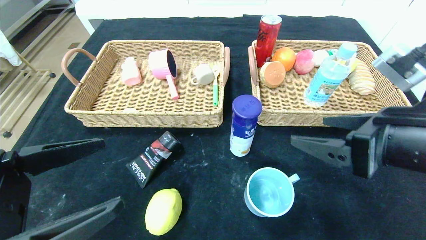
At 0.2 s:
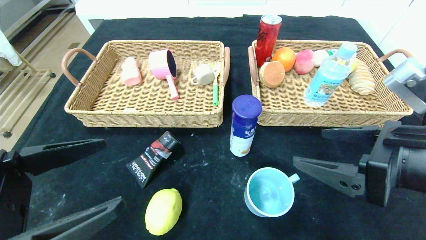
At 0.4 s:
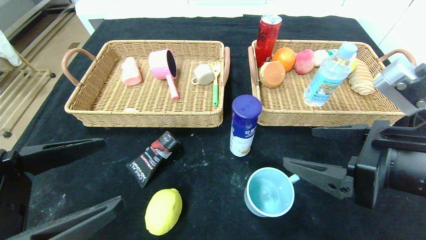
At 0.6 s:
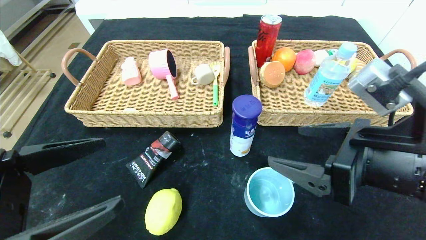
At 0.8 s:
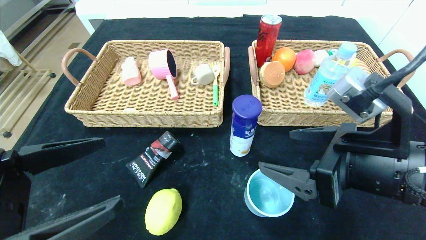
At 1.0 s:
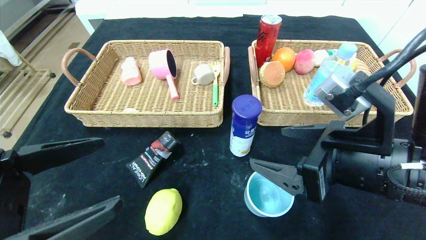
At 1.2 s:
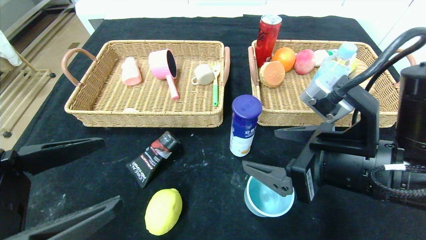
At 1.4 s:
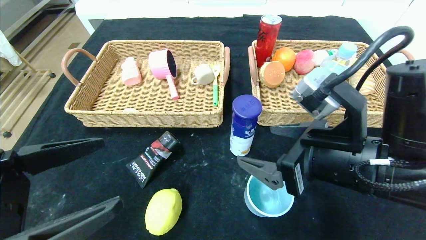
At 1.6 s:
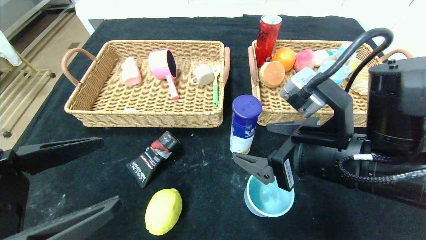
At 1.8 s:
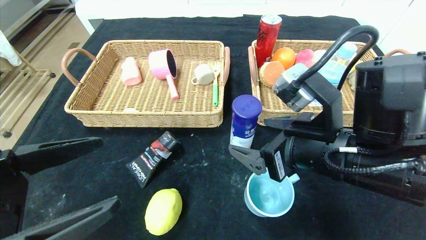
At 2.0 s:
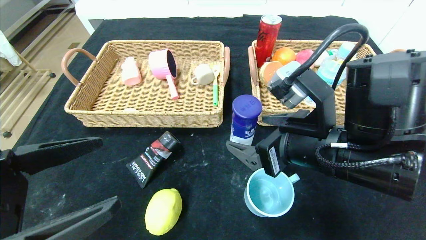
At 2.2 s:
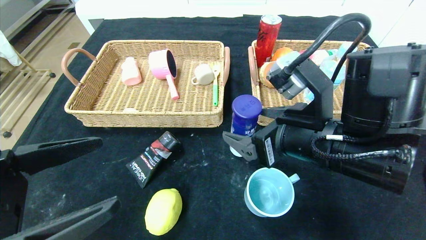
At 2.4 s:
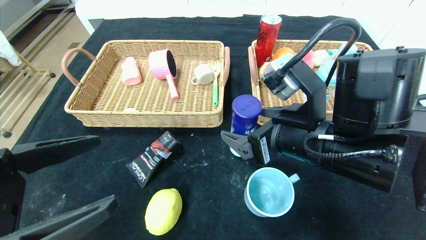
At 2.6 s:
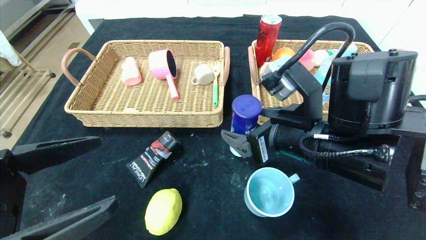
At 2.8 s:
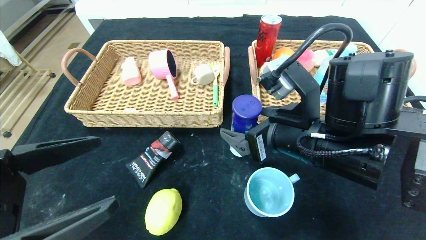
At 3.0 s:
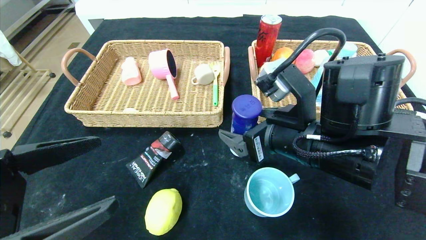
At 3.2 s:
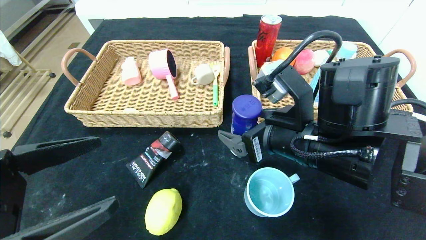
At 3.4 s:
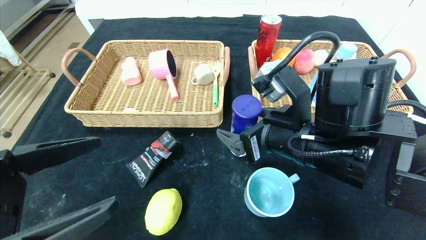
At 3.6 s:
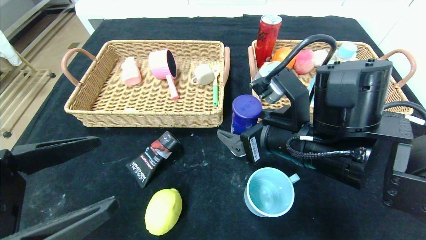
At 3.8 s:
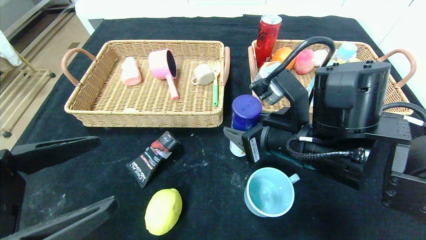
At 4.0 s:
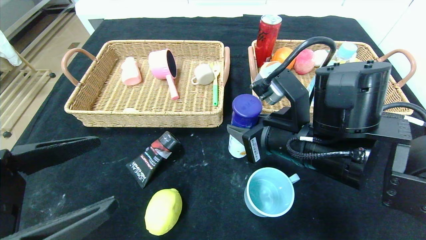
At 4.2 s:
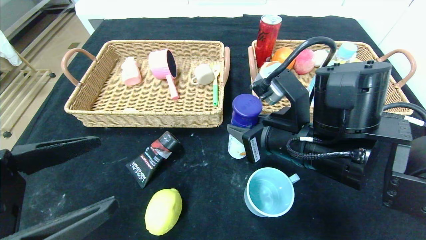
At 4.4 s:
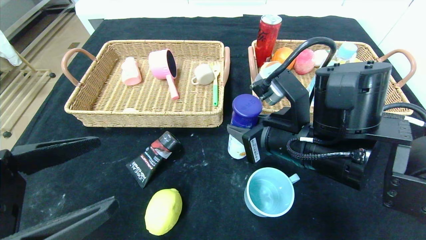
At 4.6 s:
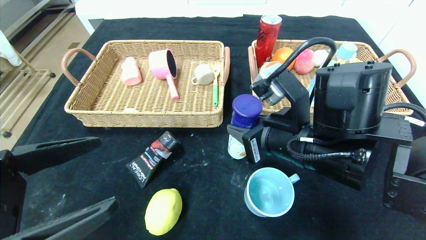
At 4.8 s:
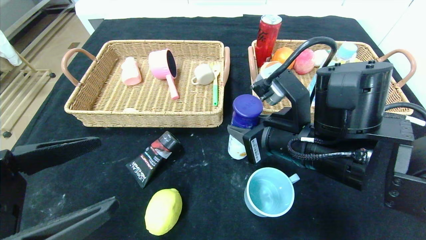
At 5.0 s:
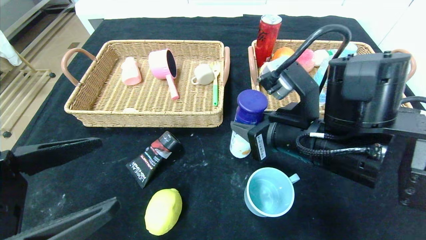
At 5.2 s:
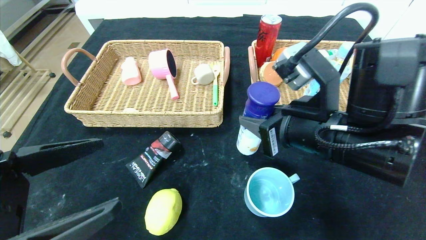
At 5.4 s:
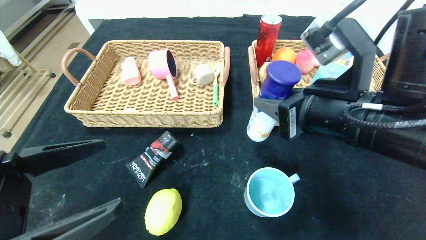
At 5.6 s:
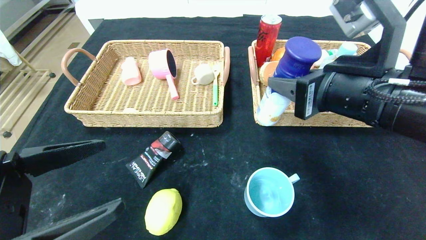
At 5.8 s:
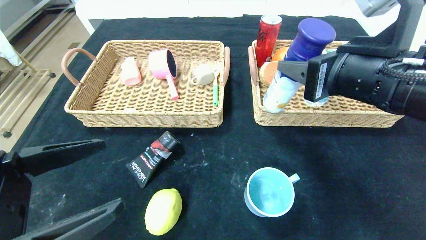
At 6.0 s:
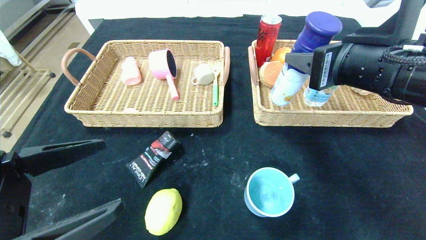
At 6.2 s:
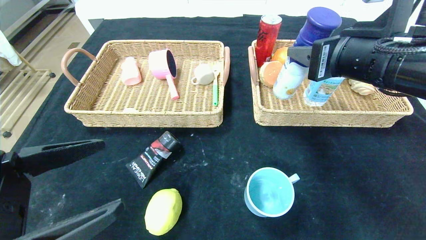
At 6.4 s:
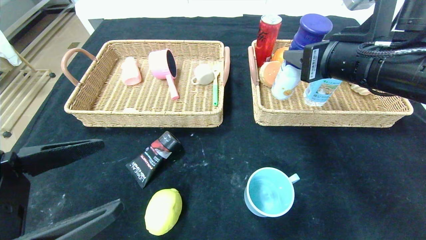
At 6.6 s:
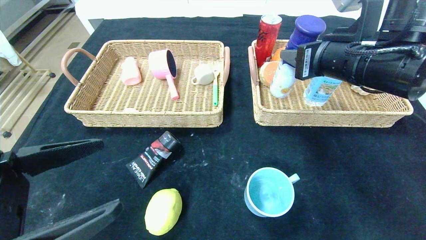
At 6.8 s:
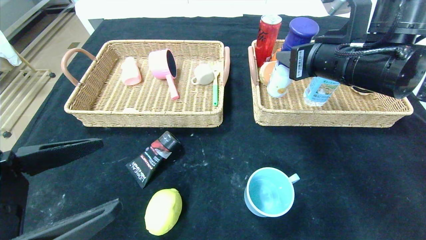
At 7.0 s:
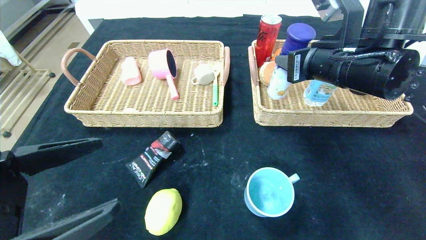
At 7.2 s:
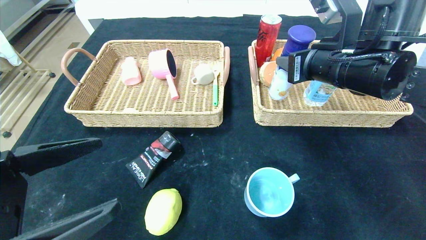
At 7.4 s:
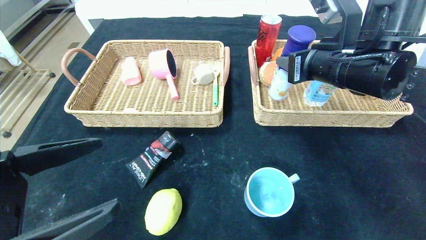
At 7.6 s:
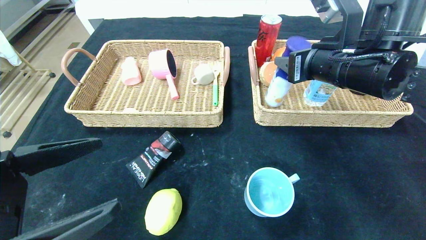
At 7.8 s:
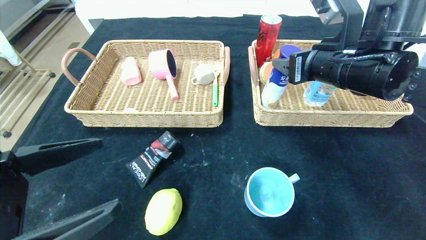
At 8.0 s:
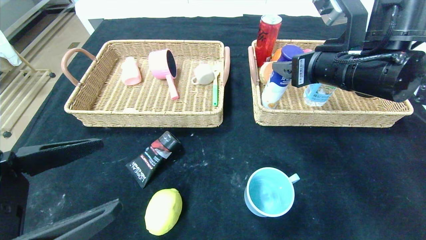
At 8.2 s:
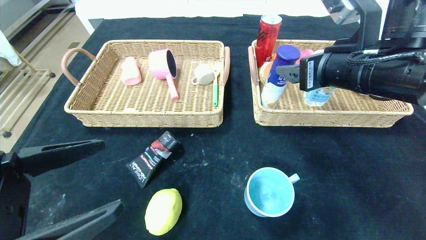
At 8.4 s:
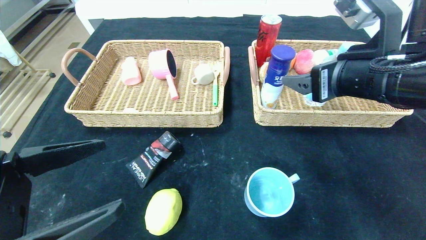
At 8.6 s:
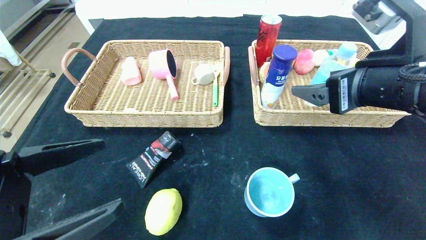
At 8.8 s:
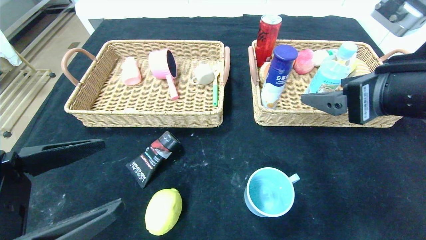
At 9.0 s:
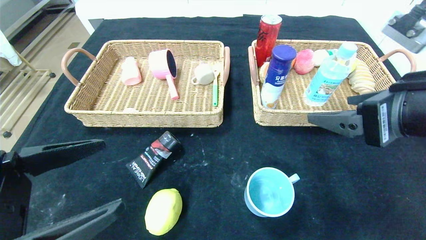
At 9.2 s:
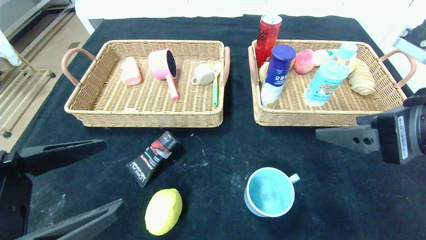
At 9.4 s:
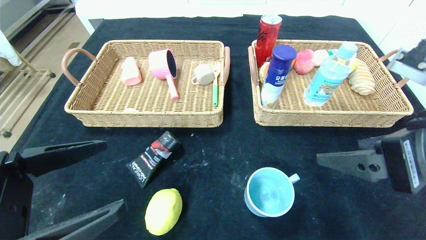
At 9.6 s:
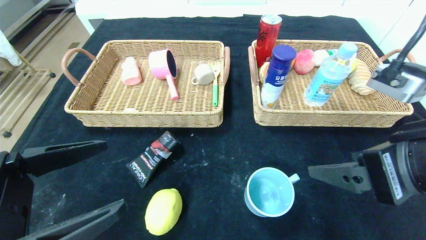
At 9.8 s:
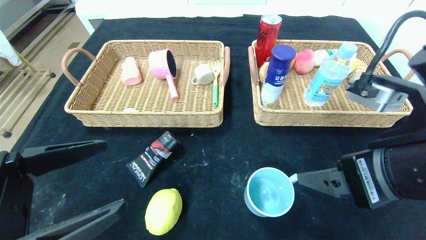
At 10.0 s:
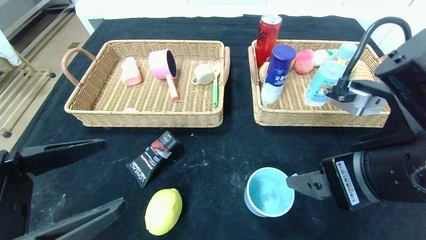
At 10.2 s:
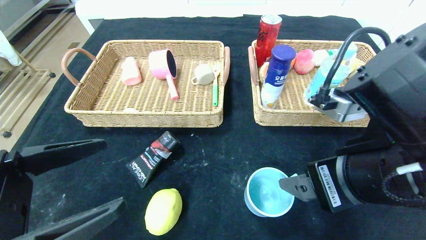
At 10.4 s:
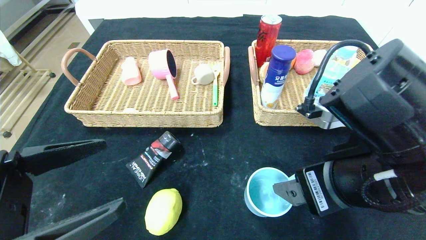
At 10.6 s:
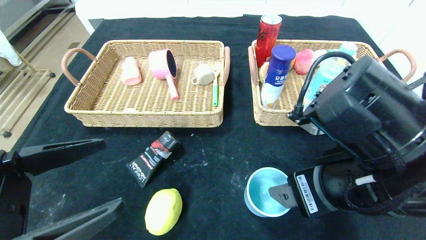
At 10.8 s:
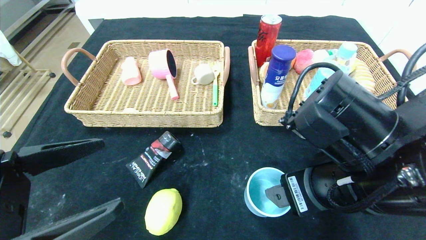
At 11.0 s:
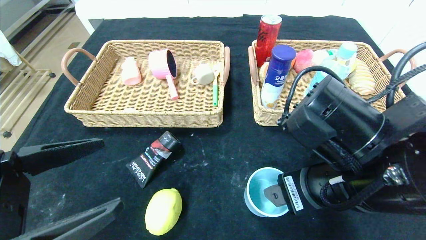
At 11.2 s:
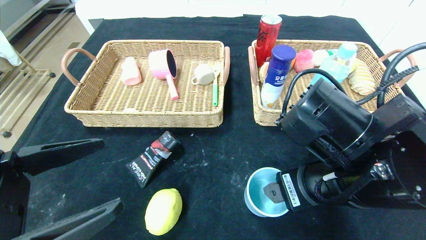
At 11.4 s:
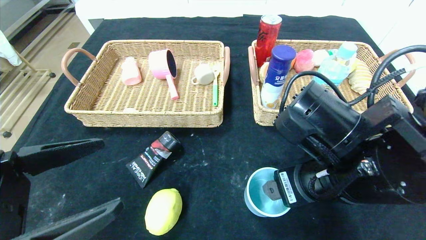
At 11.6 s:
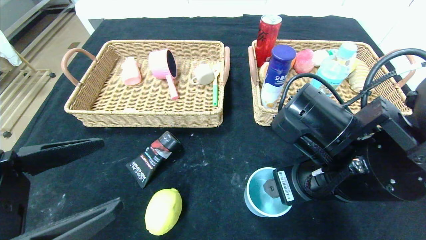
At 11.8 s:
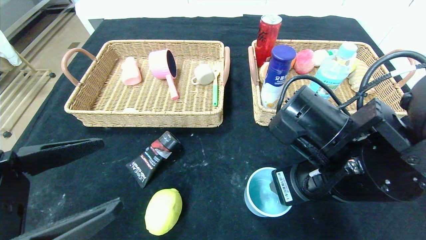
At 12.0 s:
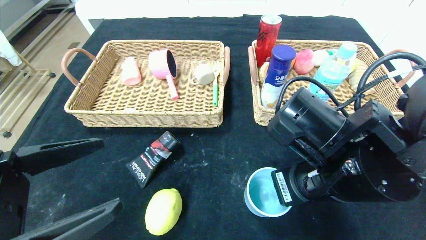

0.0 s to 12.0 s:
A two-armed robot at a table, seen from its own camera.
Step, 0.4 to 9.4 s: Pick up the yogurt and put it in the right basket.
0.0 to 1.6 s: The right gripper heads to the left, covering approximately 10 cm.
1.6 to 3.0 s: The grippers stay close to where they were, moving slightly.
3.0 to 4.4 s: The right gripper closes.
4.4 to 6.0 s: The right gripper travels upward and to the right by some 10 cm.
6.0 to 7.6 s: The right gripper shifts roughly 5 cm forward.
7.6 to 9.0 s: The right gripper moves backward, approximately 15 cm, and opens.
9.0 to 10.4 s: The right gripper heads to the left, covering approximately 5 cm.
10.4 to 12.0 s: The right gripper ends up approximately 5 cm from where it was, and closes its fingers.

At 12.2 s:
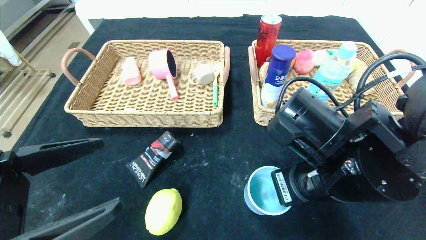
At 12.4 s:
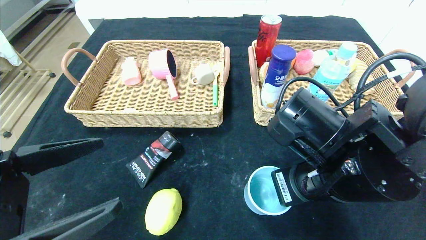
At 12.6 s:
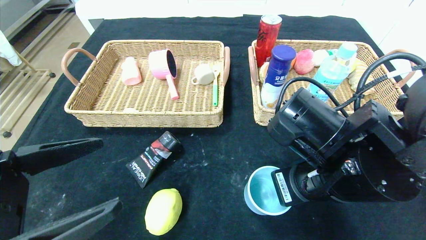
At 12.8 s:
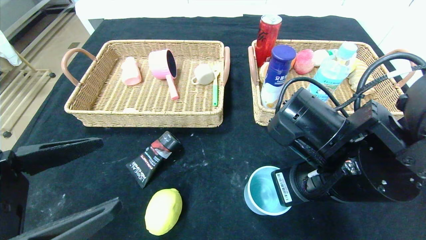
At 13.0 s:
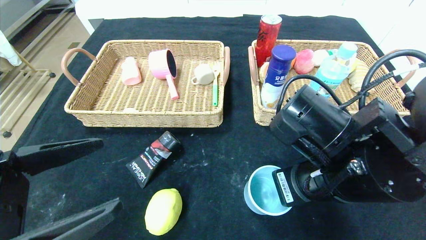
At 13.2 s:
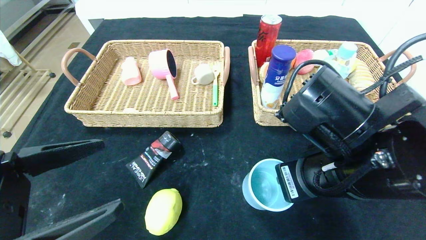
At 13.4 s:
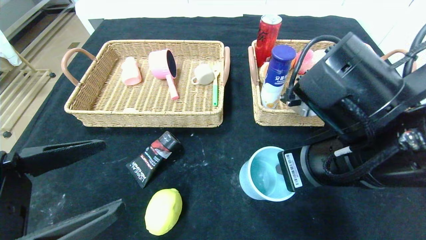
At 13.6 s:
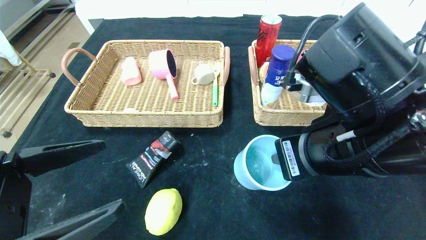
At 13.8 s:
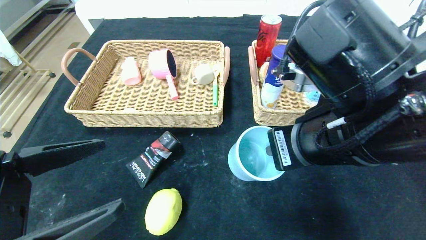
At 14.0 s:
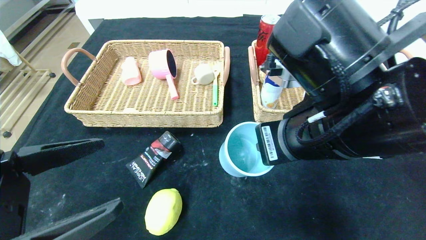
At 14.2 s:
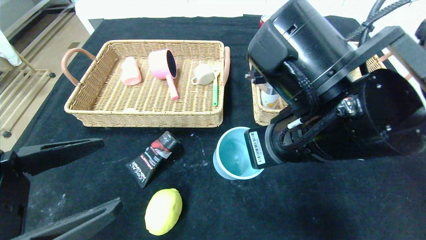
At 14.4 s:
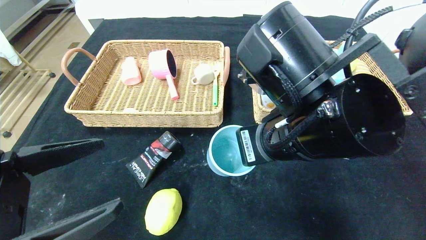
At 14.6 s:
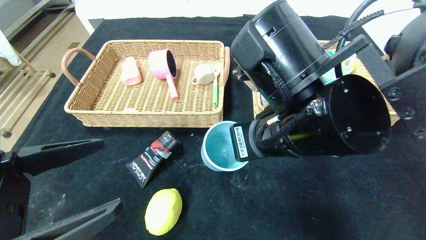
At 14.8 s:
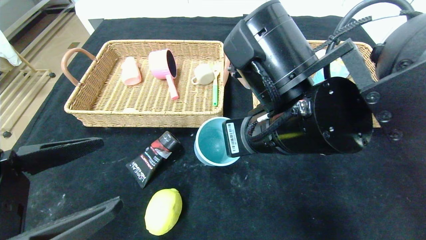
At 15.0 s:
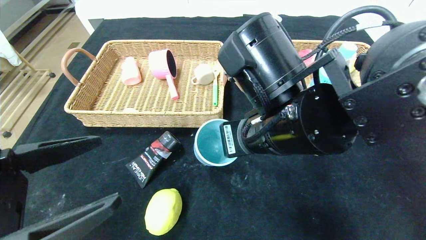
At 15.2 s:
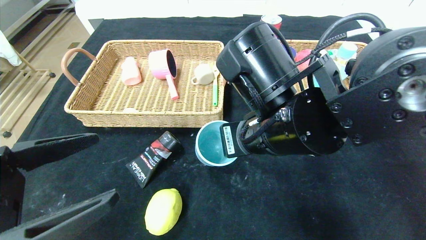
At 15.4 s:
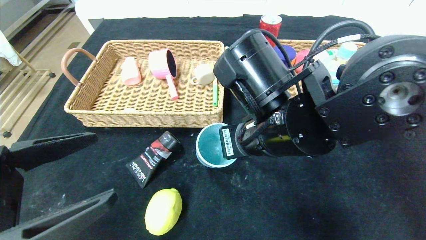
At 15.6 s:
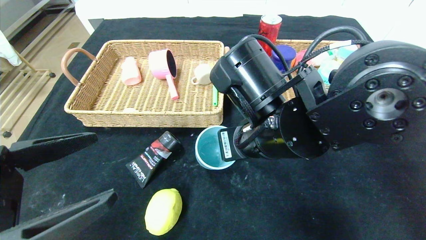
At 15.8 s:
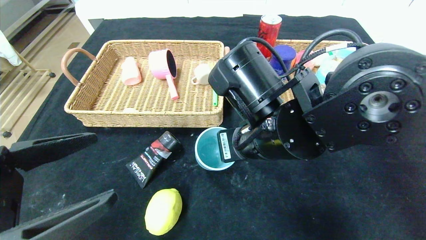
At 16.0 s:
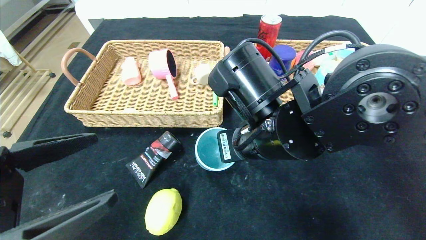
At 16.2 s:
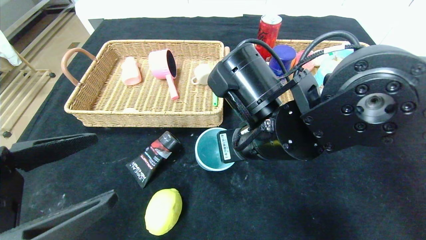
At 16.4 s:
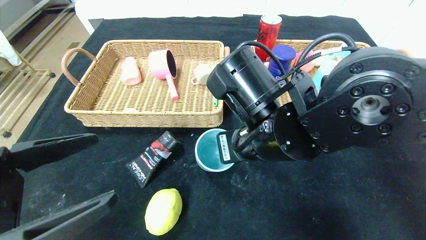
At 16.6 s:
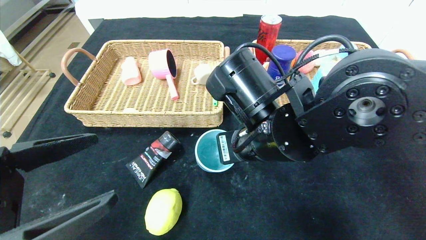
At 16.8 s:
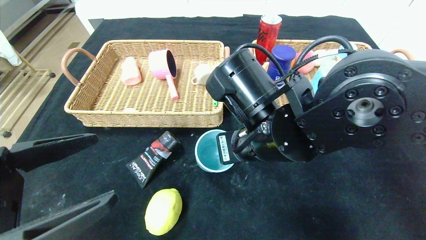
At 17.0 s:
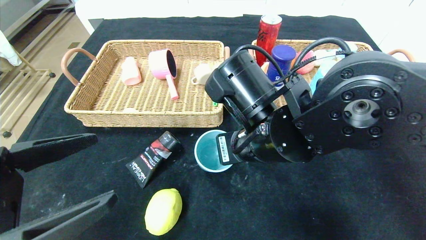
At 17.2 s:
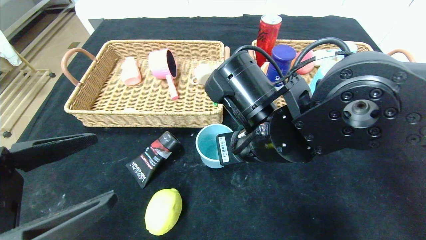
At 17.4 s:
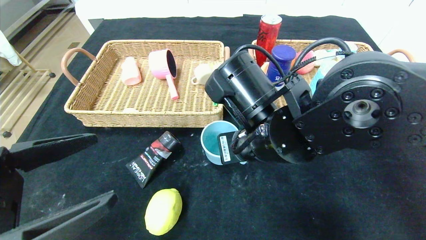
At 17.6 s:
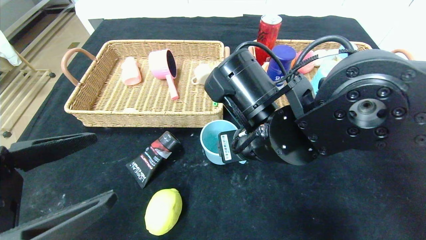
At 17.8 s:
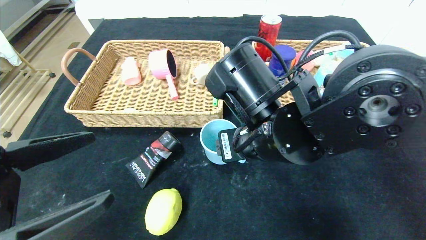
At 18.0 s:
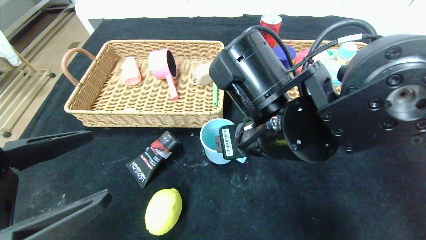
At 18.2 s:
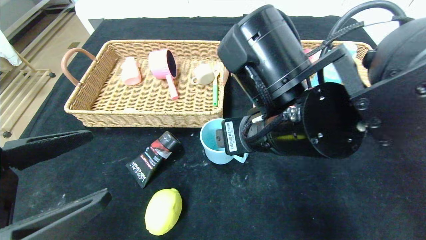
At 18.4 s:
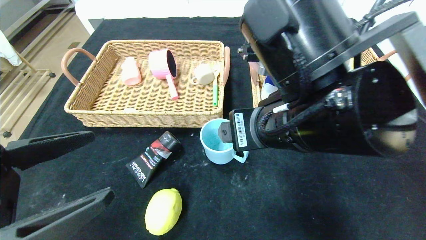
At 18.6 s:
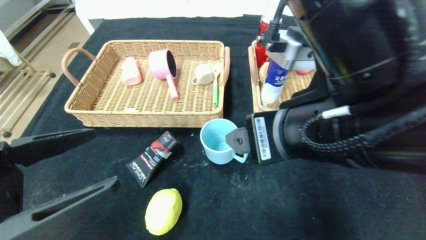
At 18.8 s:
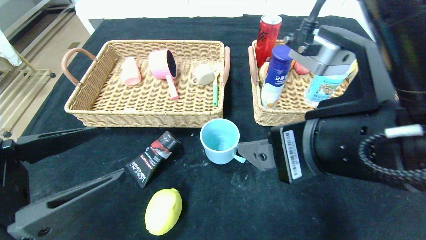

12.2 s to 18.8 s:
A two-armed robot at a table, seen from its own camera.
12.2 to 13.8 s: The right gripper moves upward, roughly 5 cm.
13.8 to 15.4 s: The right gripper heads to the left, covering some 5 cm.
15.4 to 17.2 s: The right gripper opens up.
17.2 to 18.8 s: The right gripper shifts some 15 cm backward, to the right and upward, and opens up.
